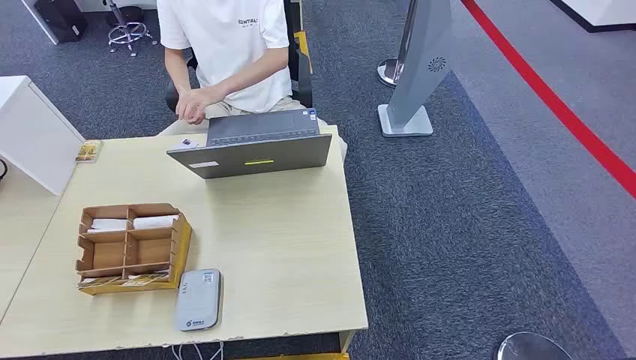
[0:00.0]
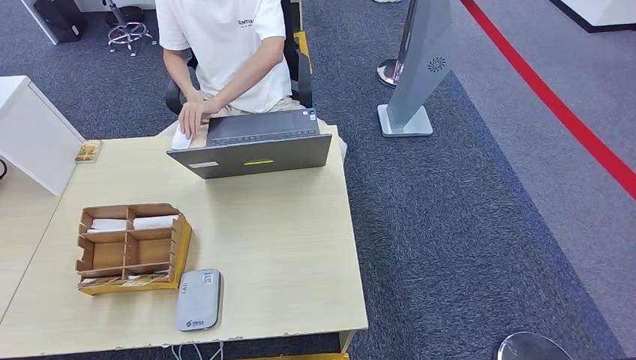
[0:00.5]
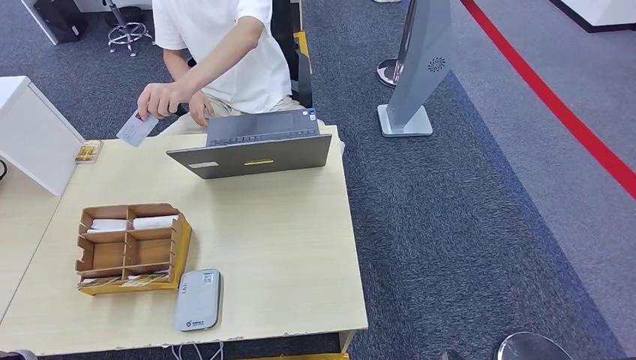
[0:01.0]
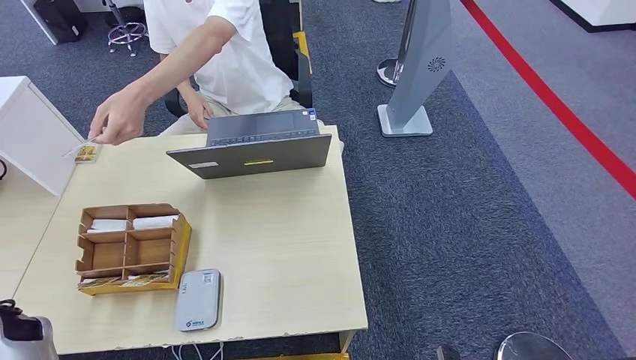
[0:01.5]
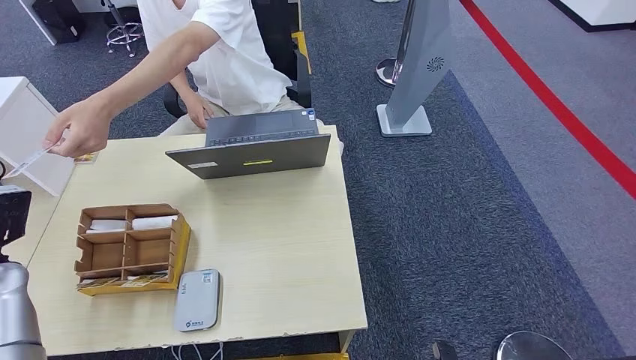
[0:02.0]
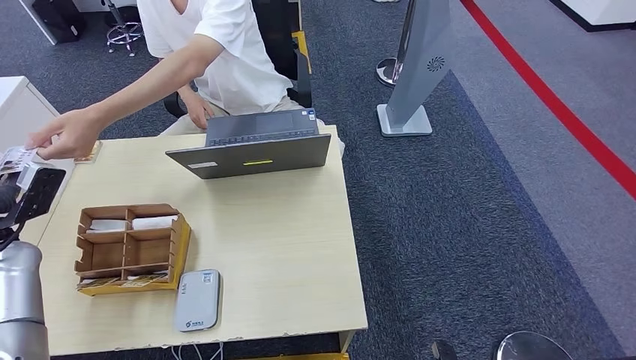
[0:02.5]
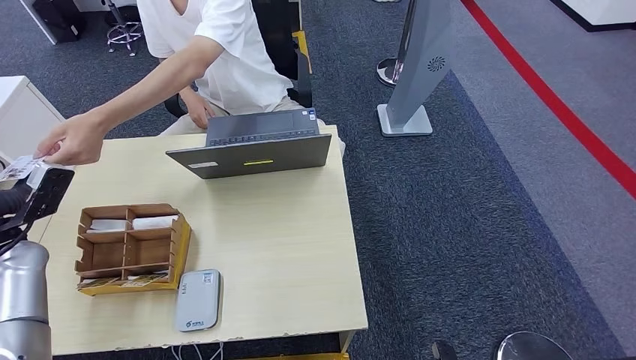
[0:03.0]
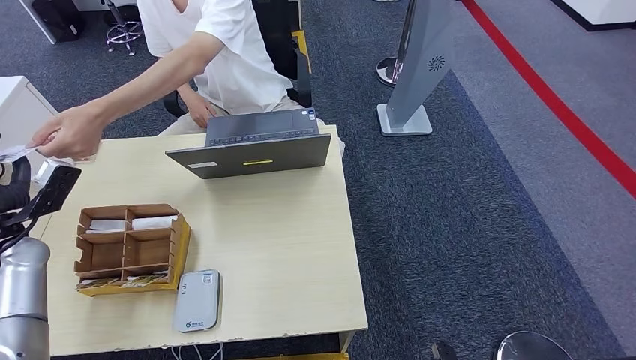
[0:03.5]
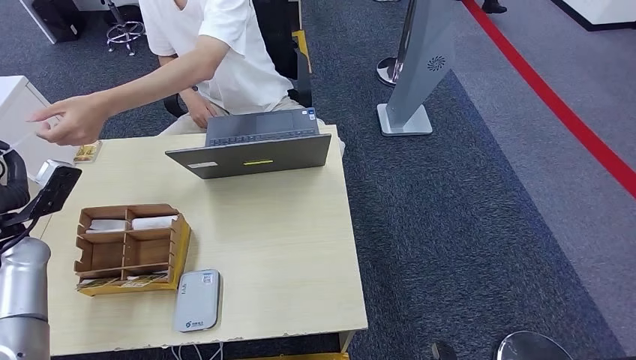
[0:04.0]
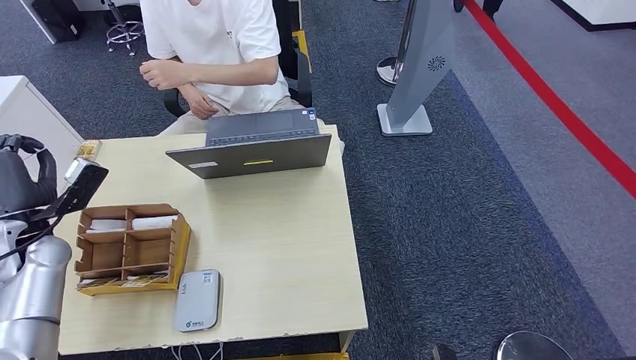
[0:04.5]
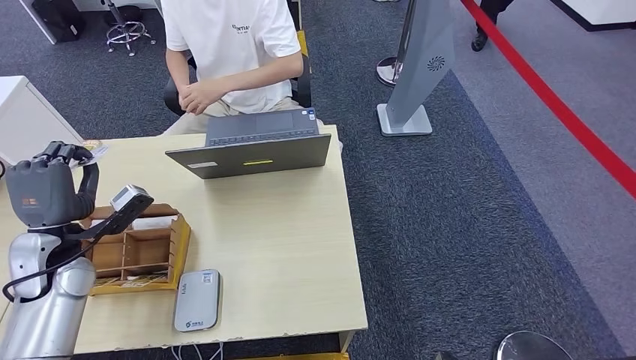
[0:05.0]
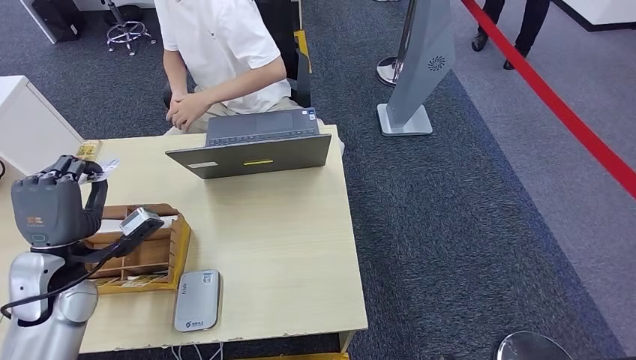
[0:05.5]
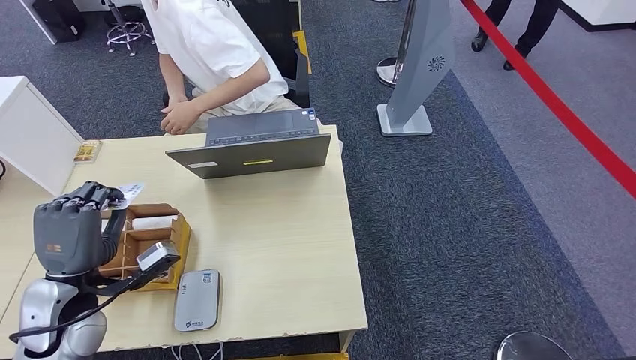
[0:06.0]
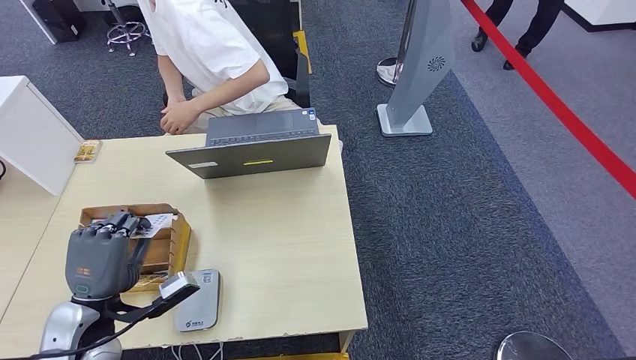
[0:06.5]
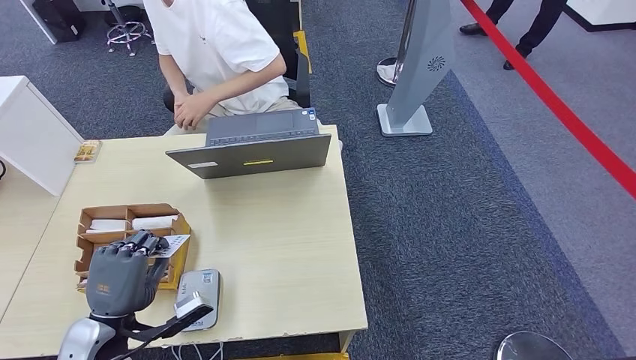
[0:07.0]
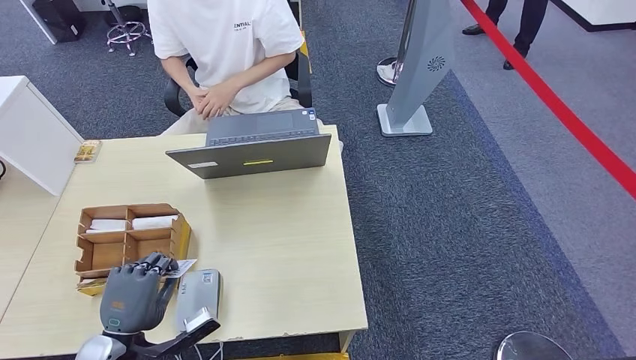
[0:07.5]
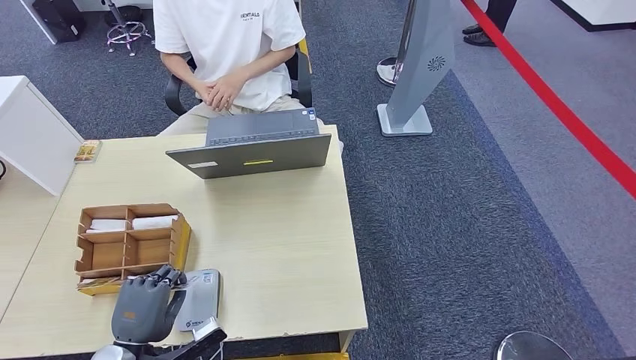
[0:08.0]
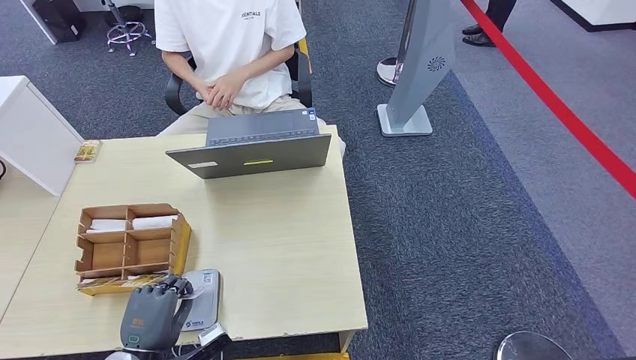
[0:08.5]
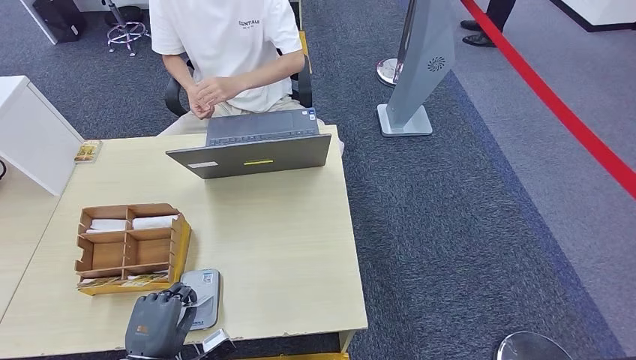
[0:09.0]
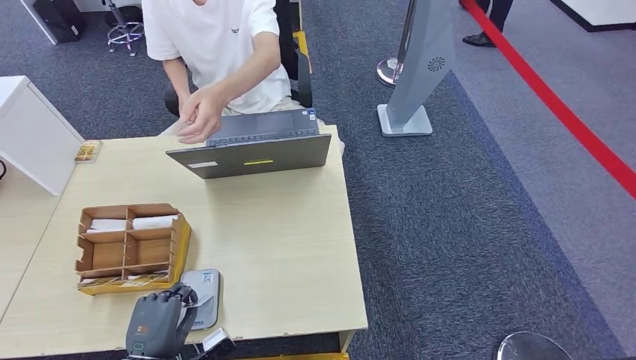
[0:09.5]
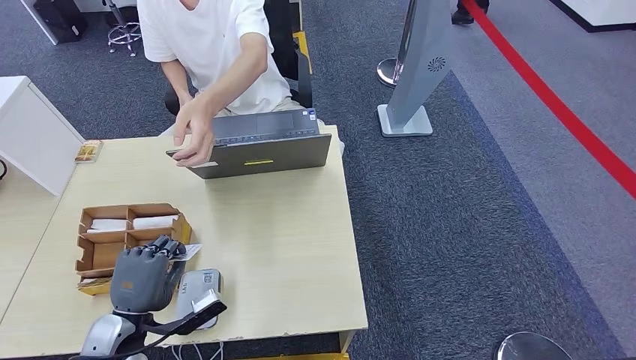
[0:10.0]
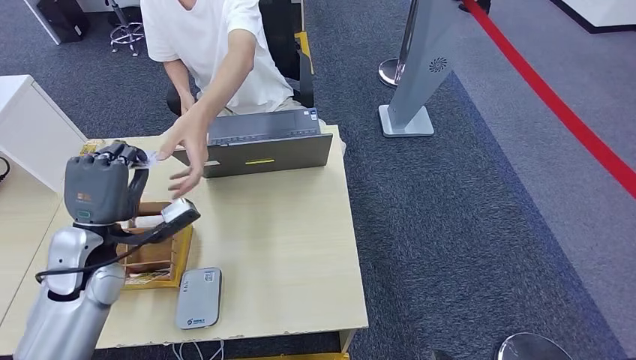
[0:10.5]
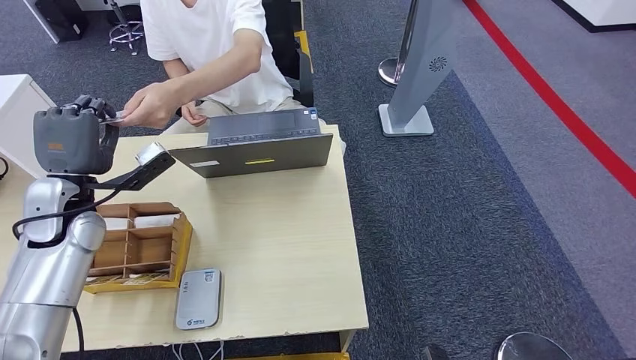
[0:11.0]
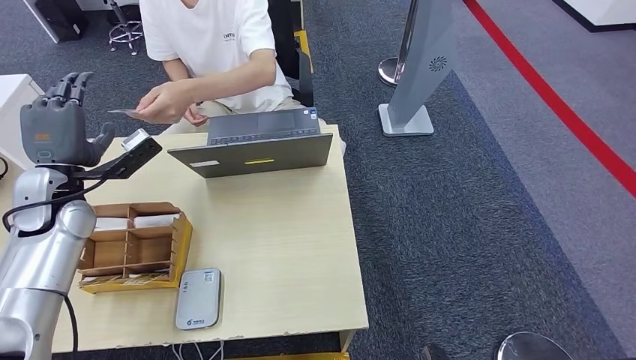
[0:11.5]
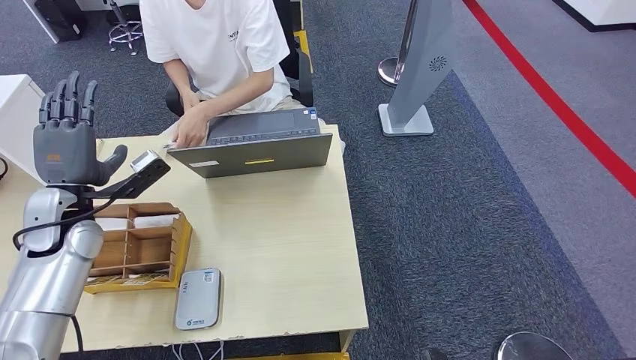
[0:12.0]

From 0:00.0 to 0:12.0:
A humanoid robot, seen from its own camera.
Step, from 0:00.0 to 0:03.0: Take the ID card from the person's hand.
Step, from 0:03.5 to 0:09.0: Place the ID card on the card reader.
Step, from 0:09.5 to 0:11.5: Hand the ID card to the person.
From 0:02.0 to 0:04.0: The hands move only a little.
From 0:04.0 to 0:06.0: The left hand moves to the right and backward, approximately 15 cm.
From 0:06.0 to 0:08.0: The left hand travels downward and backward by roughly 15 cm.
From 0:08.0 to 0:10.0: There are only small adjustments of the hands.
From 0:10.0 to 0:12.0: The left hand goes roughly 20 cm forward and upward.

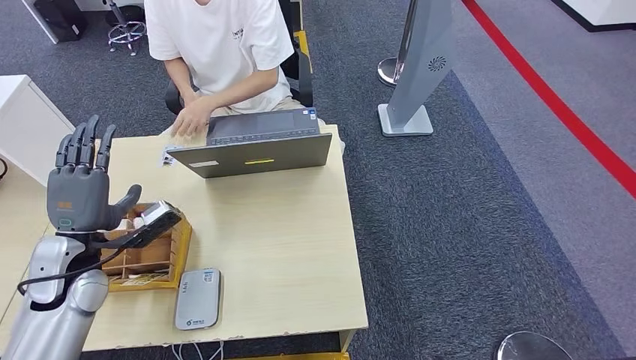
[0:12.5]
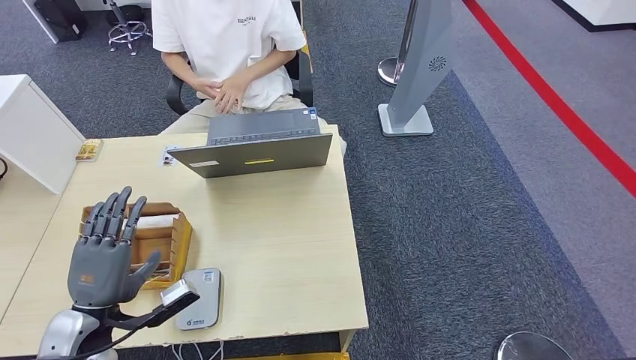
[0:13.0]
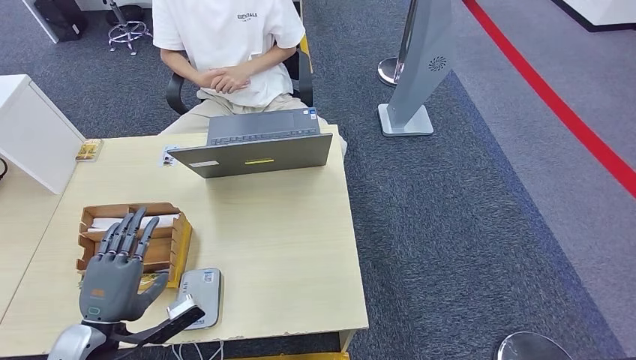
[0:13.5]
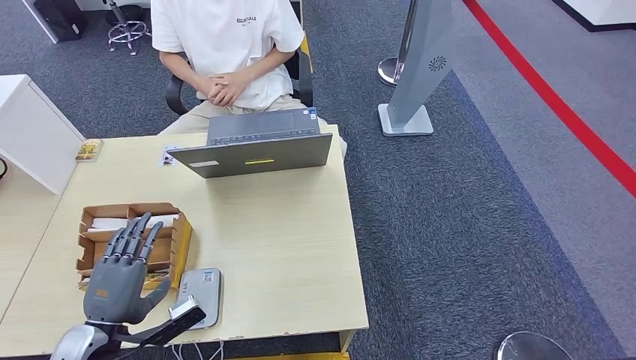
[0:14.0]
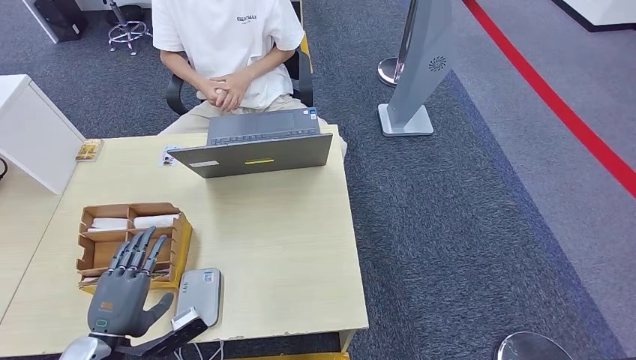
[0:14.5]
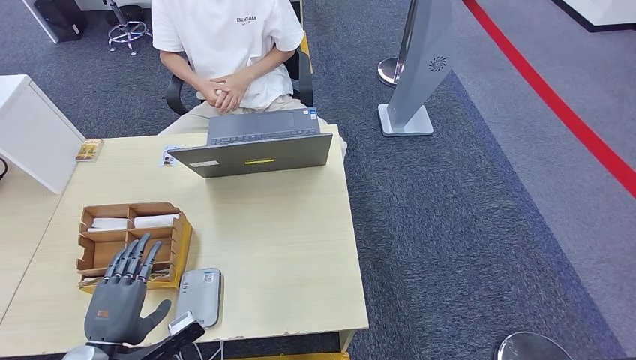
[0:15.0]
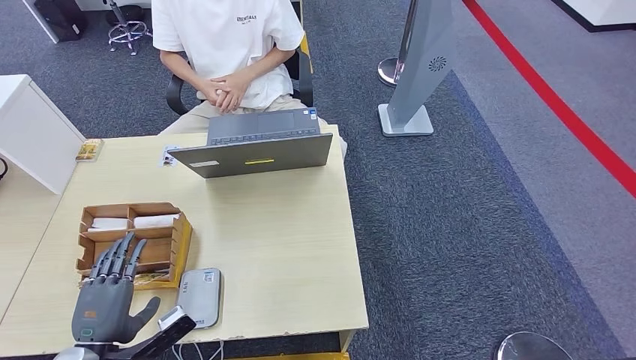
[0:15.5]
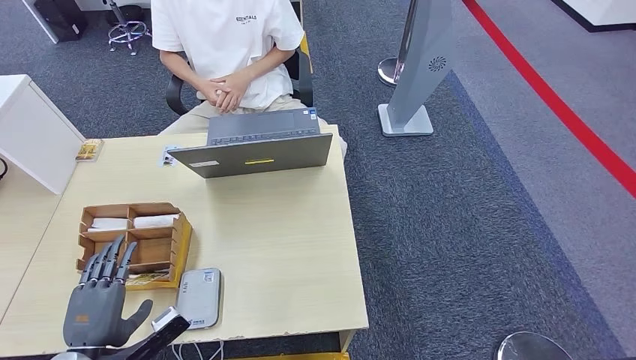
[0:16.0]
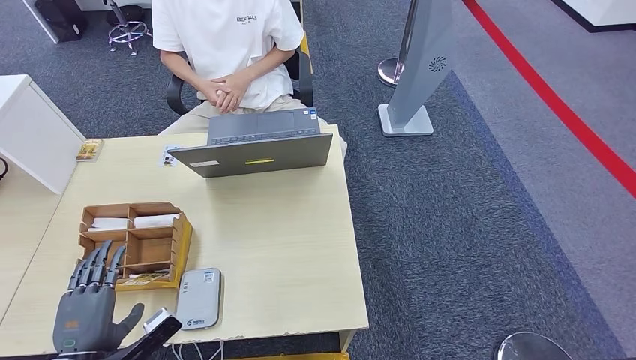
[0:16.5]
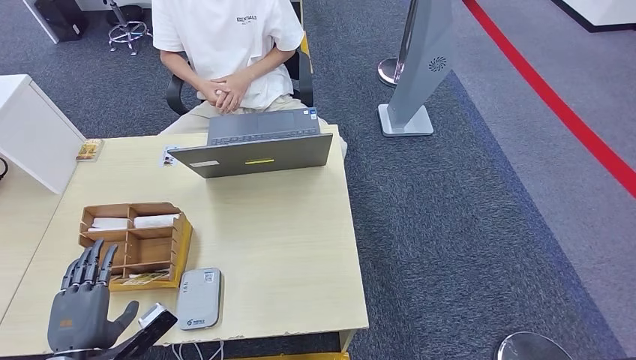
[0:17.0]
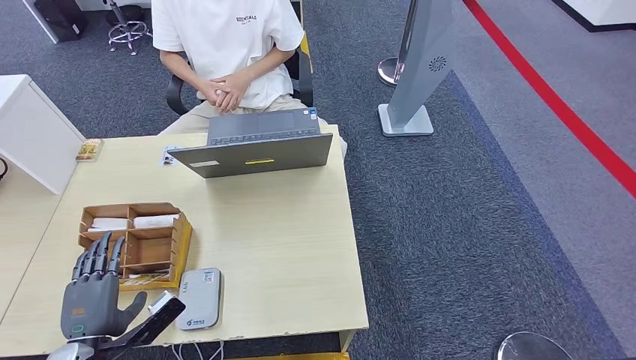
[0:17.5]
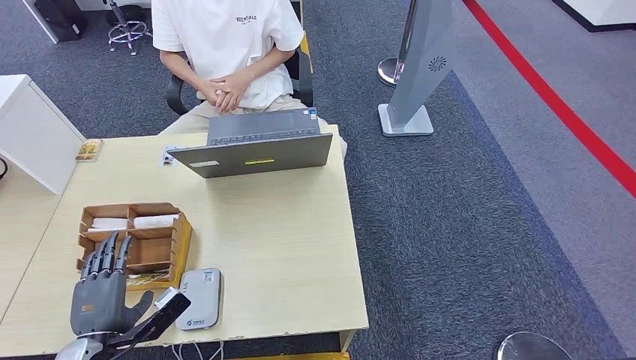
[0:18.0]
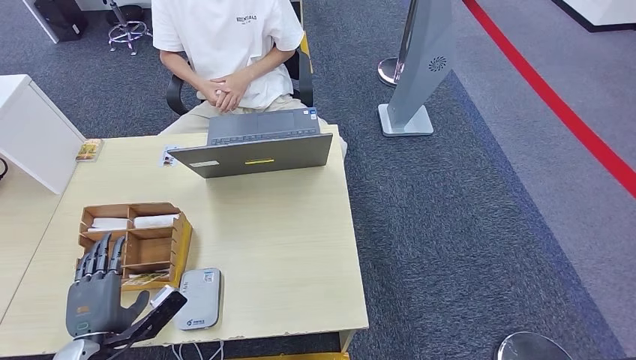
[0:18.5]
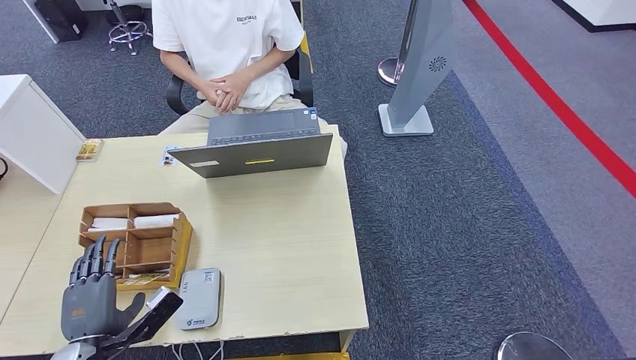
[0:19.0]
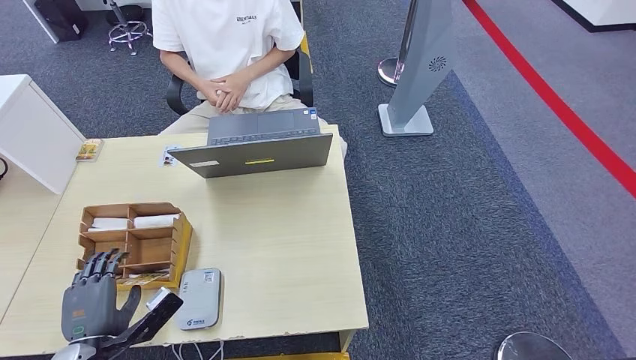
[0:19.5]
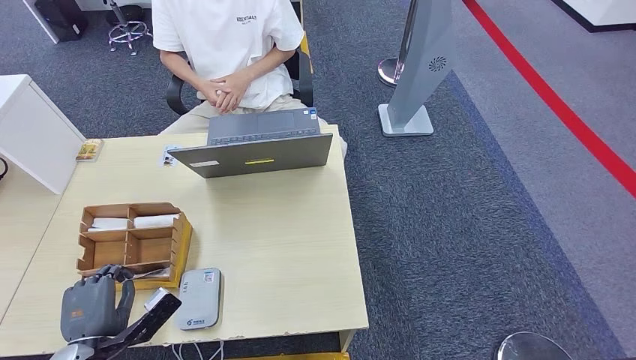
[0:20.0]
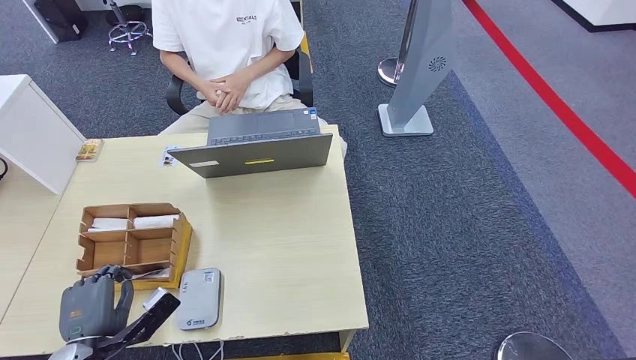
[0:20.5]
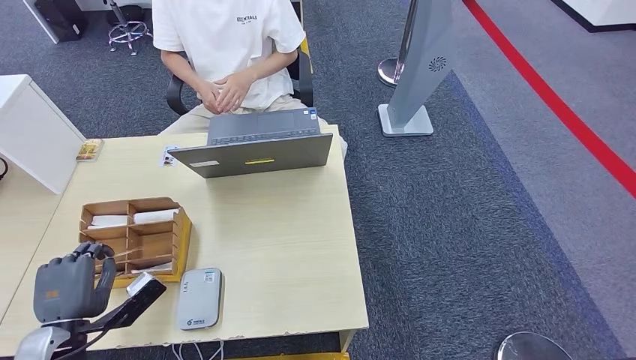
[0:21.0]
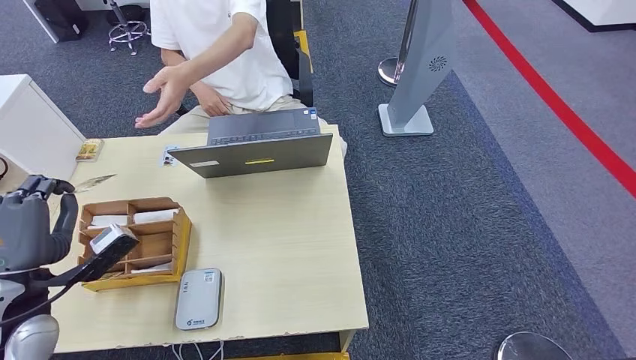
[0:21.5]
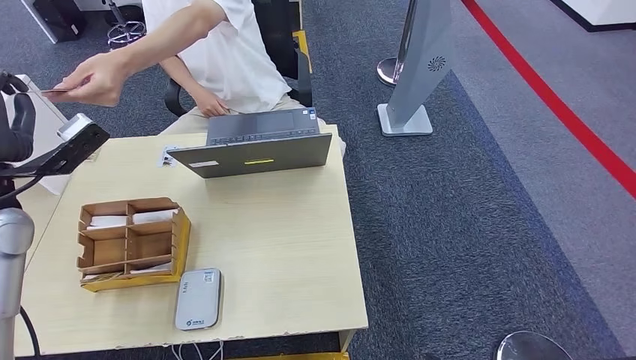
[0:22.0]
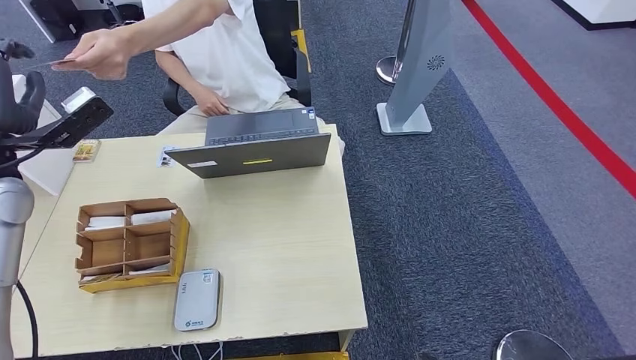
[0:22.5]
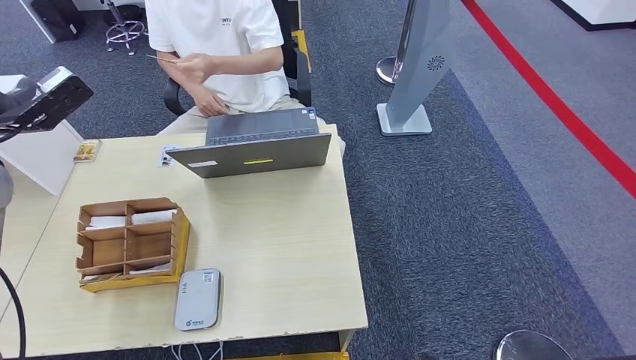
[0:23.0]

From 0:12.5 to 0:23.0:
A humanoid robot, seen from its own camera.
Step, from 0:12.5 to 0:20.5: Pick up the room key from the key card box.
From 0:12.5 to 0:14.5: The left hand goes some 15 cm backward and downward.
From 0:14.5 to 0:19.0: There are only small adjustments of the hands.
From 0:19.0 to 0:21.0: The left hand shifts by some 5 cm.
From 0:21.0 to 0:23.0: The left hand goes roughly 30 cm upward and forward.
